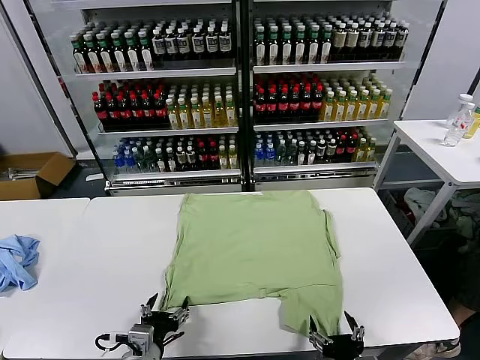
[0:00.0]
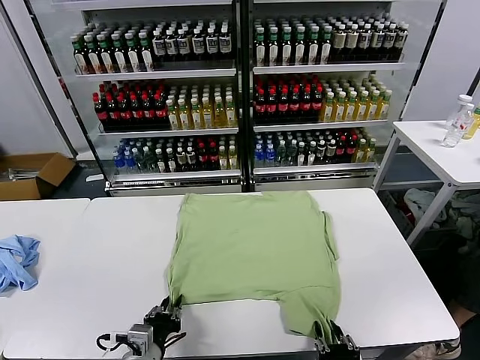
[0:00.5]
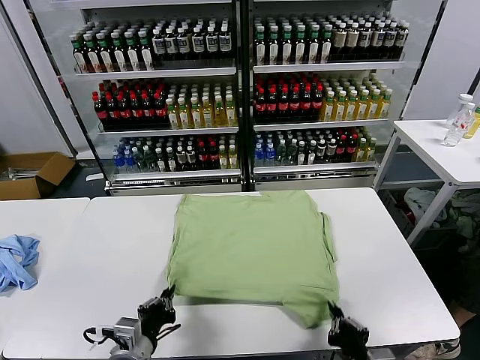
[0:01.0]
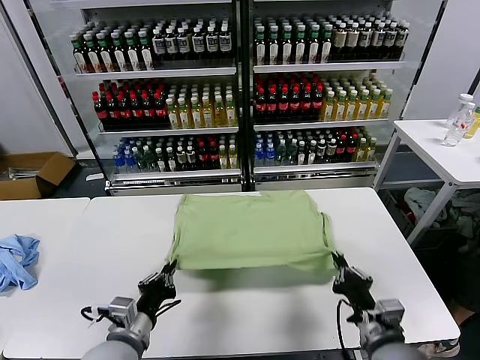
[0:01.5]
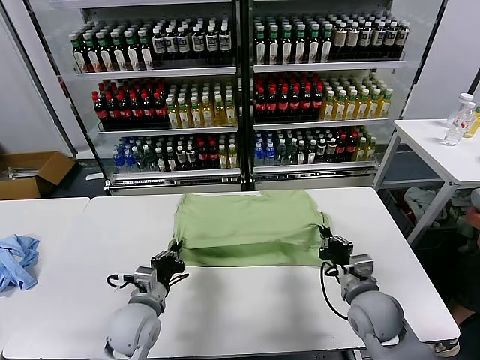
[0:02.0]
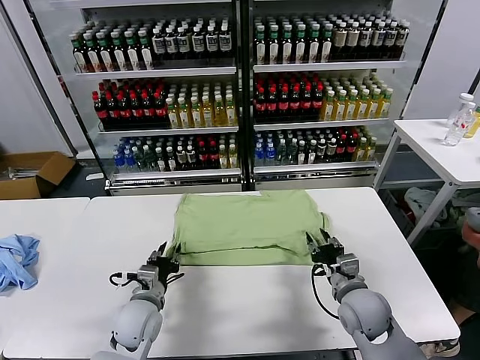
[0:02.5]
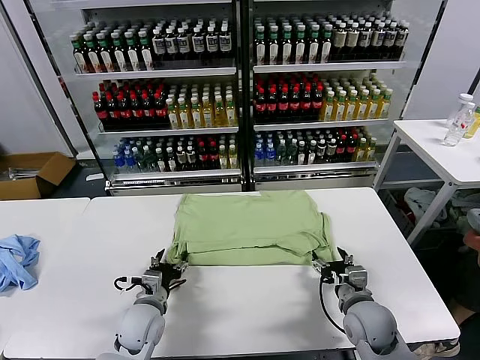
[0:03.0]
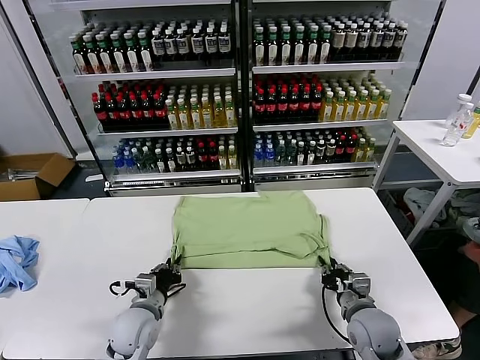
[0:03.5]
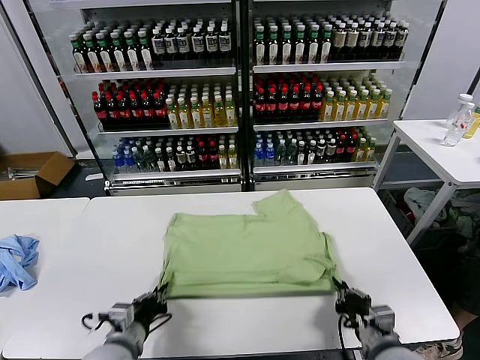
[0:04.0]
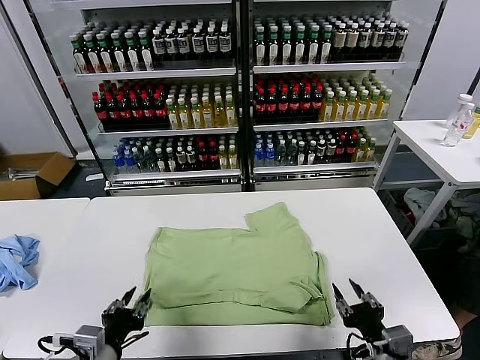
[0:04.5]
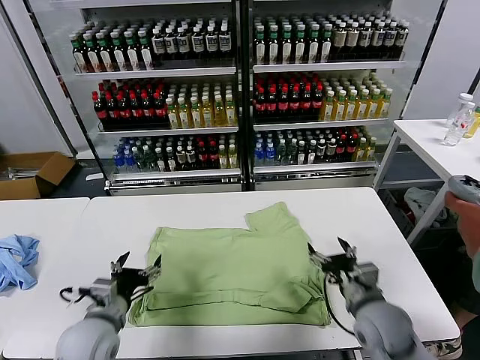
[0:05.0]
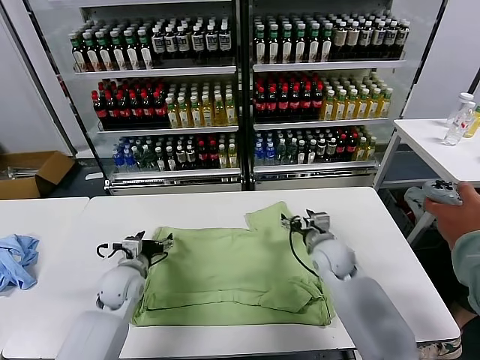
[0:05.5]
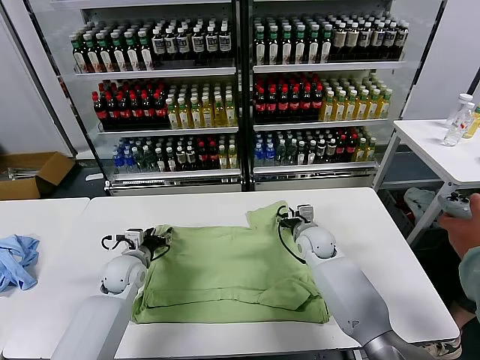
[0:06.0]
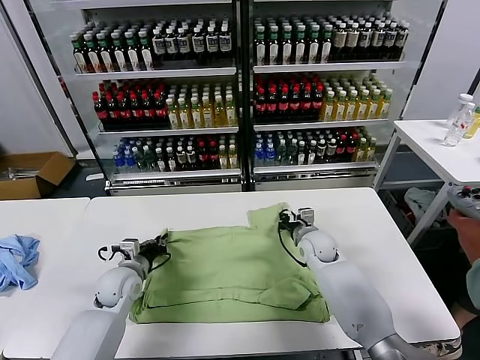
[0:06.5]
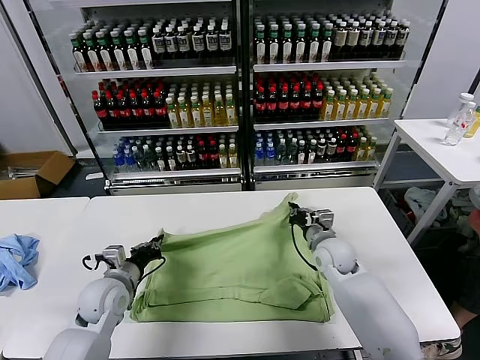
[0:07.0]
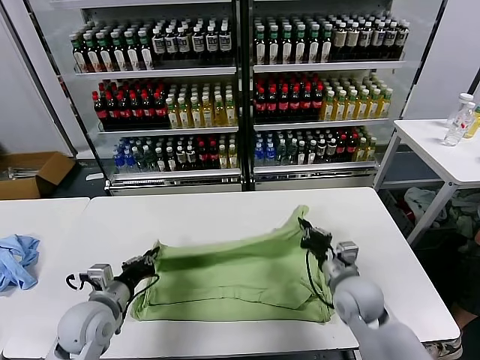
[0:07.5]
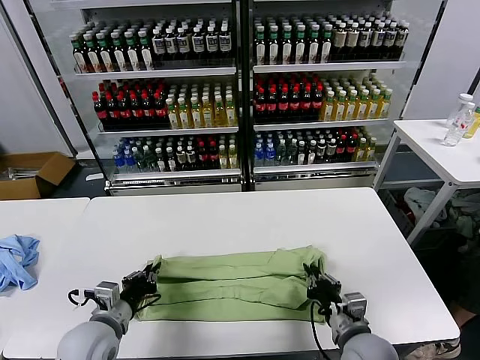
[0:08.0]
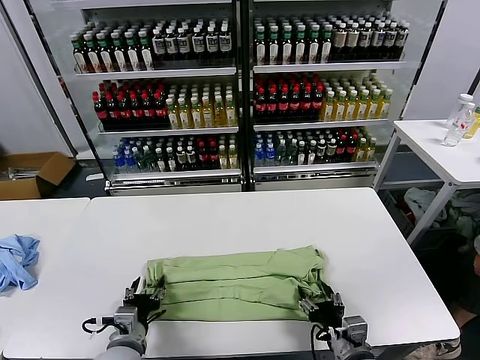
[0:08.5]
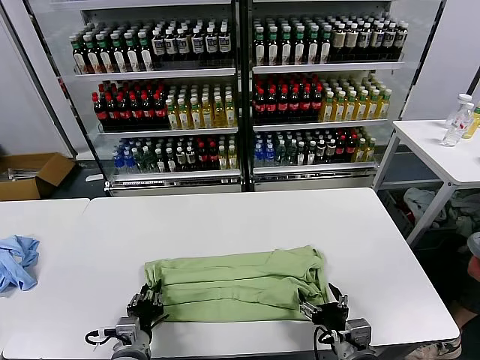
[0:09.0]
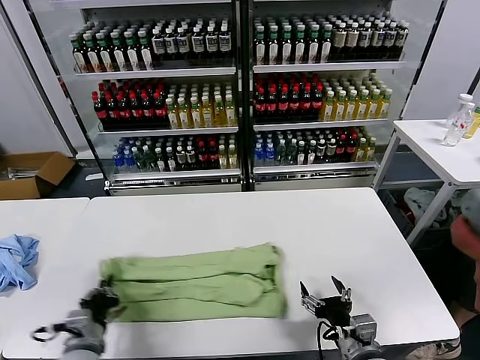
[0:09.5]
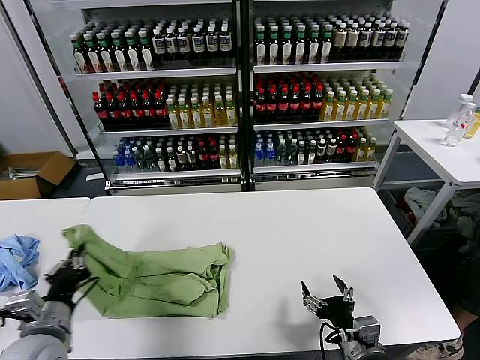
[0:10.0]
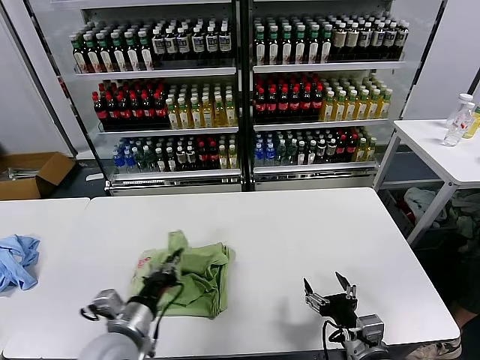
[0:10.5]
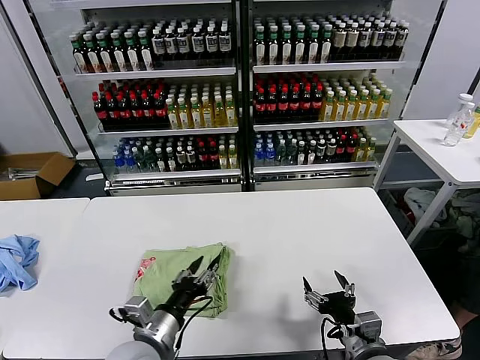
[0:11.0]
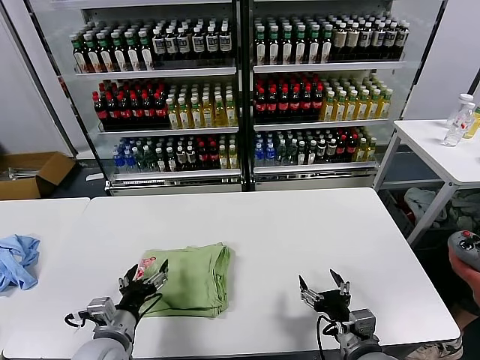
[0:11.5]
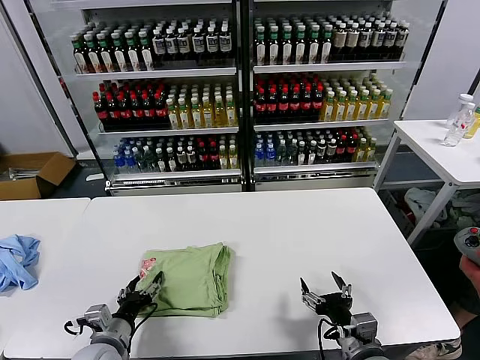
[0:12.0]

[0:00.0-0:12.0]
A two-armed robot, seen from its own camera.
Task of the whole recording: fold and organize the clothes.
Step, 0:00.0 to 0:00.5: use both grippers simultaneously to clamp the lower edge of the clothing fabric.
Step, 0:01.0 to 0:02.5: use both grippers to drag the lower edge of the fabric forward and fold it over the upper edge.
Step, 0:03.0 to 0:04.0: Drag the clothes downward with both gripper.
Step, 0:05.0 to 0:06.5: use both grippers simultaneously to clamp the upper edge of the clothing fabric.
Step, 0:07.0 to 0:08.0: use both grippers to drag the upper edge of the fabric backward and fold it over the lower edge.
Step, 0:09.0 to 0:10.5: use the left gripper to drag the left edge of the fabric to the left and folds it over the right edge.
0:02.0 to 0:04.0: The left gripper shifts about 10 cm backward, and opens, then closes again. The right gripper moves backward, roughly 15 cm, and opens, then closes once more.
0:04.0 to 0:06.0: The left gripper heads forward, covering roughly 20 cm, and opens, while the right gripper travels forward by about 35 cm, and opens.
0:06.0 to 0:08.0: The right gripper shifts roughly 30 cm backward. The left gripper goes about 15 cm backward, and closes its fingers.
0:08.0 to 0:10.0: The right gripper opens its fingers. Meanwhile the left gripper travels to the left and upward by some 10 cm, and opens, then closes once more.
0:10.0 to 0:12.0: The left gripper goes some 10 cm downward, travels to the right and back again, some 15 cm each way, and opens its fingers.

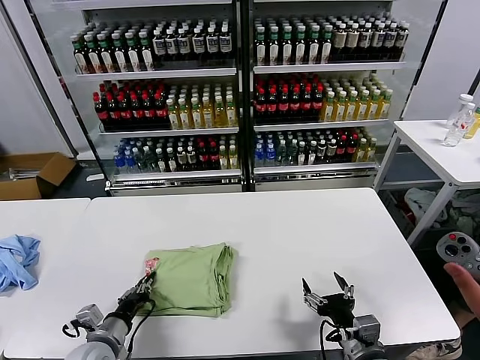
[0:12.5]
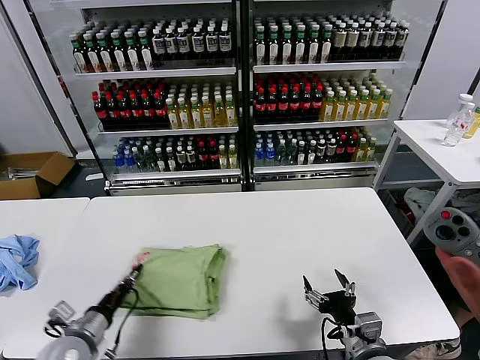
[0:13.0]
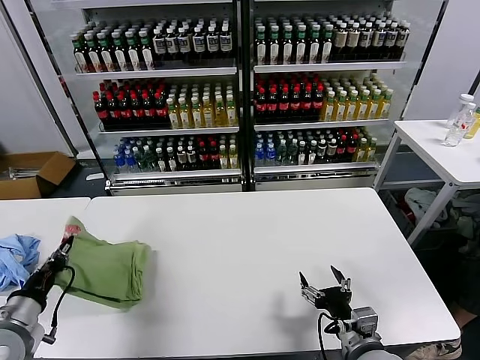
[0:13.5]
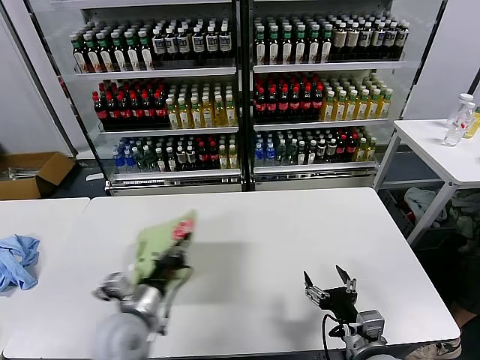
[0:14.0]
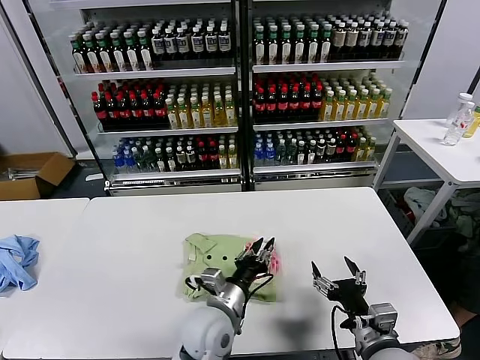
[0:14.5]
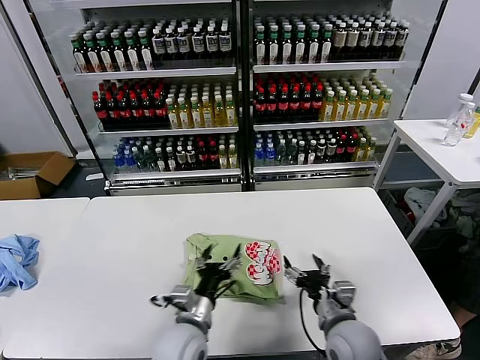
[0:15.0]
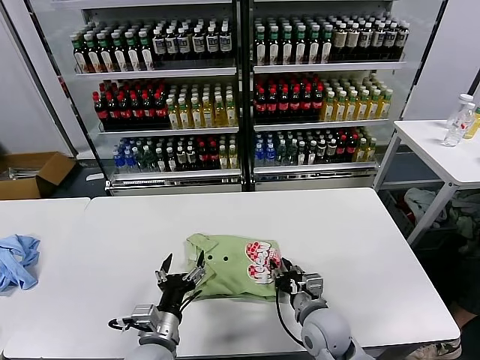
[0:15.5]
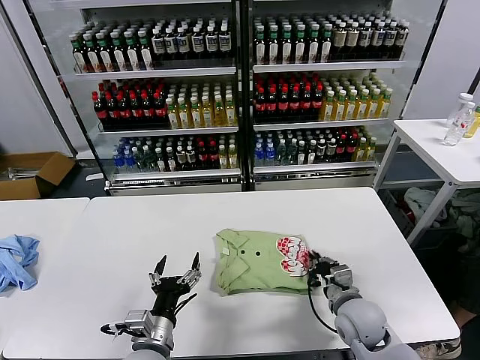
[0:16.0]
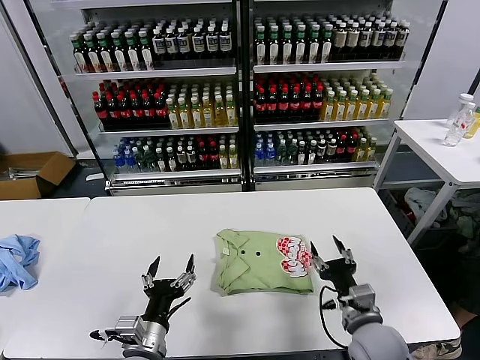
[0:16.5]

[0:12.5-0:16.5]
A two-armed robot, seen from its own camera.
Task of the whole recording: fold and organize the clothes.
Step, 0:12.5 to 0:14.5: Flip the folded clothes over with left gripper.
Step, 0:15.0 to 0:16.0: Drag the clothes to the center of the table.
0:12.5 to 0:14.5: The left gripper shifts approximately 25 cm to the right.
0:14.5 to 0:16.5: The left gripper moves to the left and backward, about 15 cm, and opens its fingers, while the right gripper travels forward by about 5 cm, and closes.
